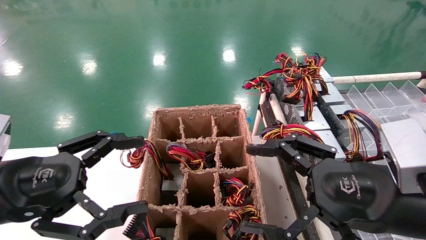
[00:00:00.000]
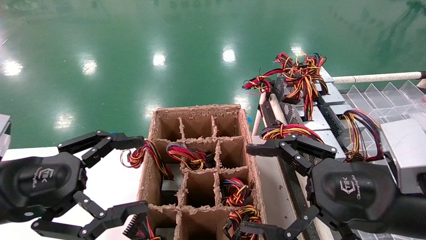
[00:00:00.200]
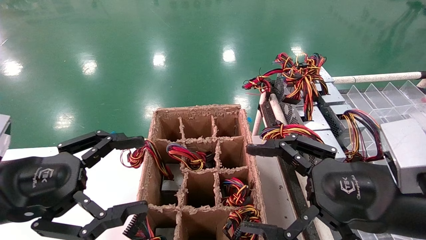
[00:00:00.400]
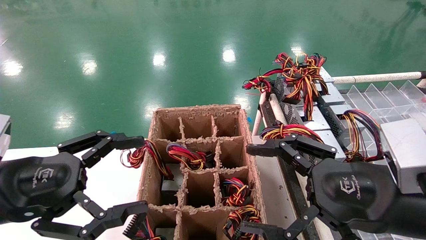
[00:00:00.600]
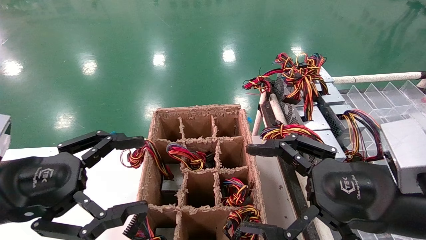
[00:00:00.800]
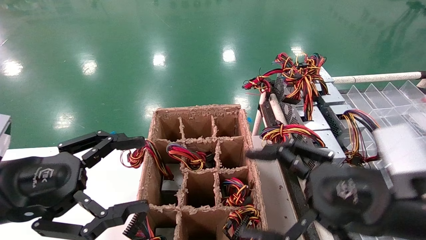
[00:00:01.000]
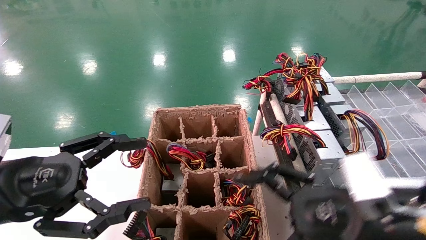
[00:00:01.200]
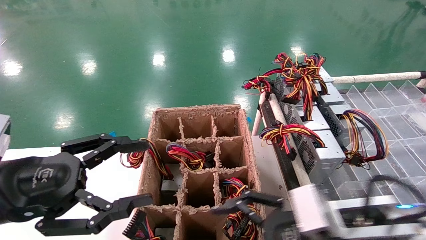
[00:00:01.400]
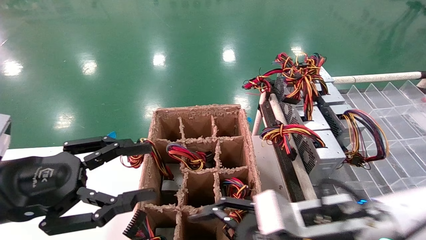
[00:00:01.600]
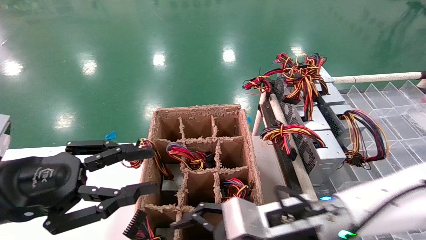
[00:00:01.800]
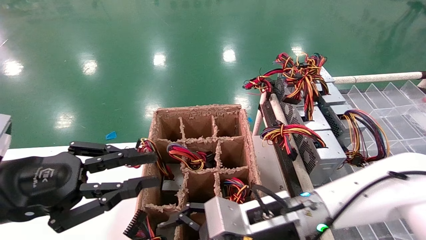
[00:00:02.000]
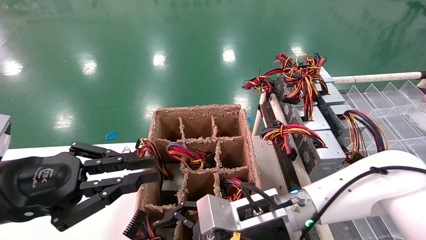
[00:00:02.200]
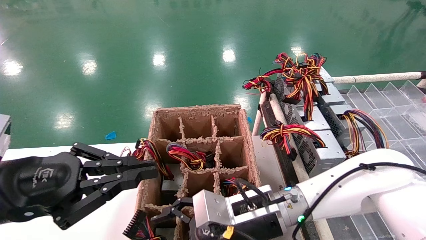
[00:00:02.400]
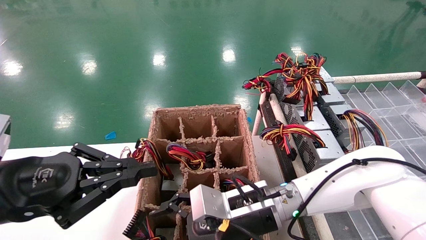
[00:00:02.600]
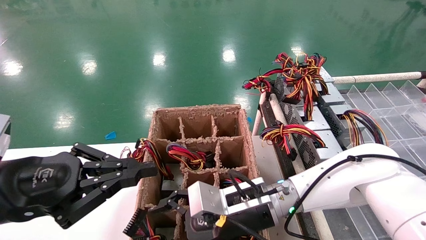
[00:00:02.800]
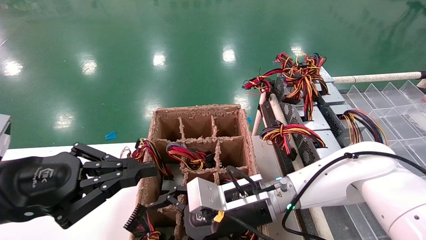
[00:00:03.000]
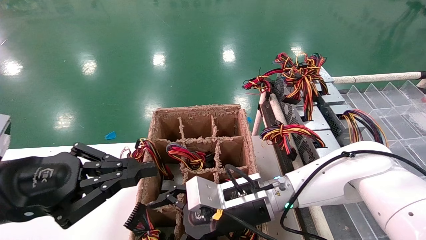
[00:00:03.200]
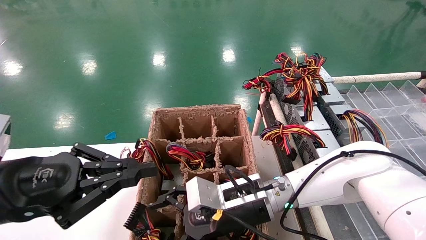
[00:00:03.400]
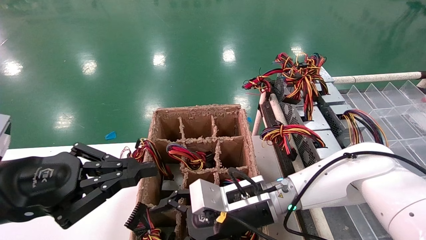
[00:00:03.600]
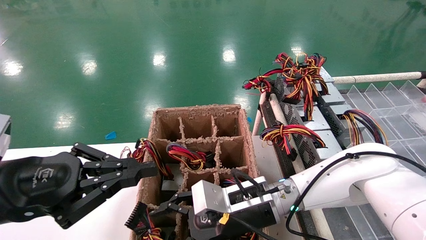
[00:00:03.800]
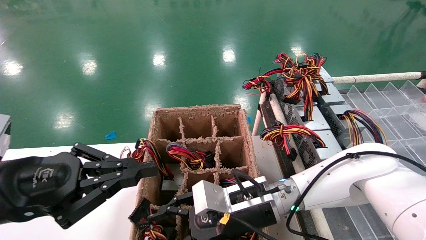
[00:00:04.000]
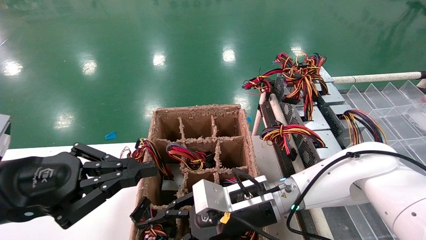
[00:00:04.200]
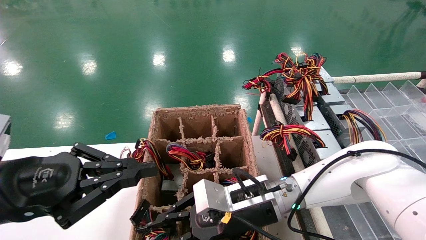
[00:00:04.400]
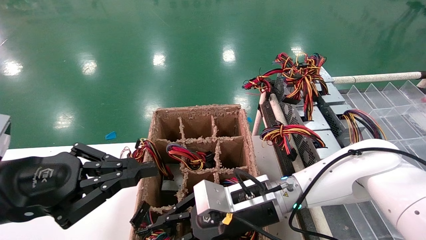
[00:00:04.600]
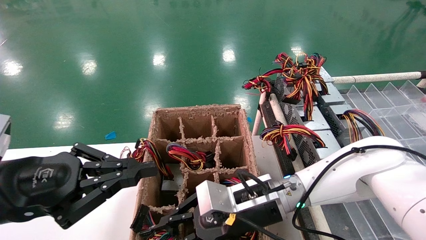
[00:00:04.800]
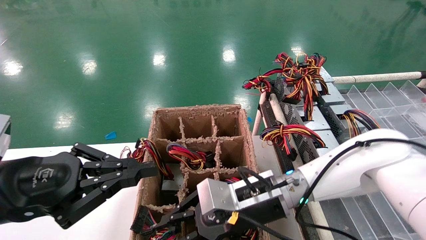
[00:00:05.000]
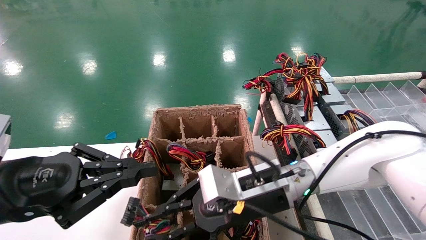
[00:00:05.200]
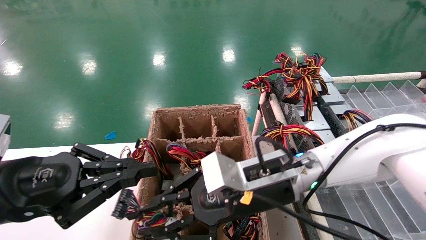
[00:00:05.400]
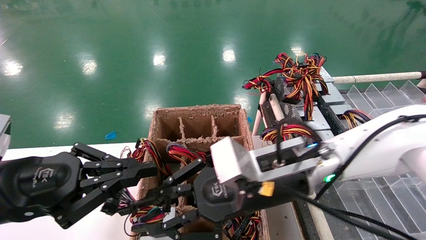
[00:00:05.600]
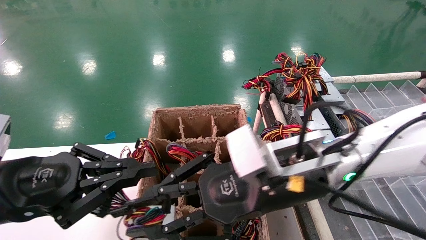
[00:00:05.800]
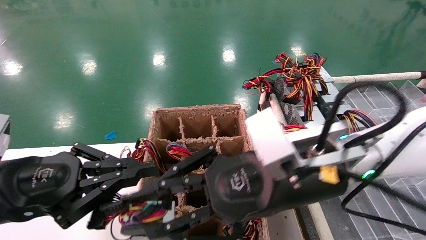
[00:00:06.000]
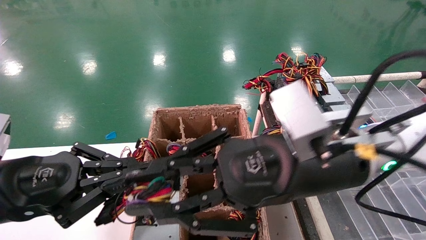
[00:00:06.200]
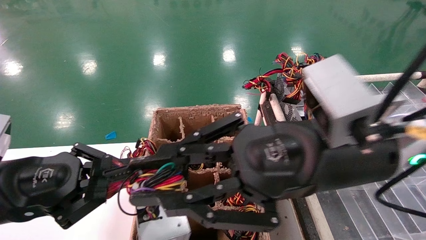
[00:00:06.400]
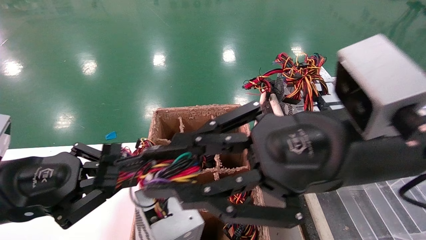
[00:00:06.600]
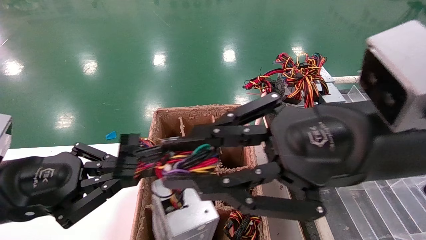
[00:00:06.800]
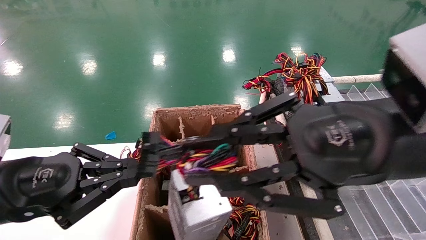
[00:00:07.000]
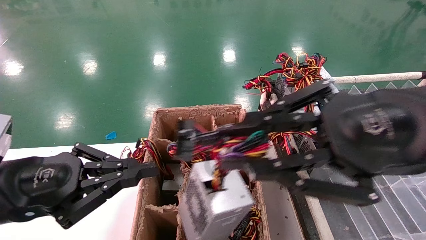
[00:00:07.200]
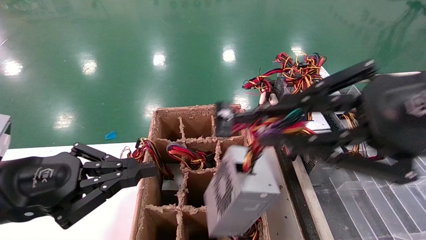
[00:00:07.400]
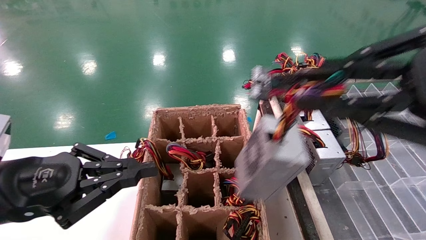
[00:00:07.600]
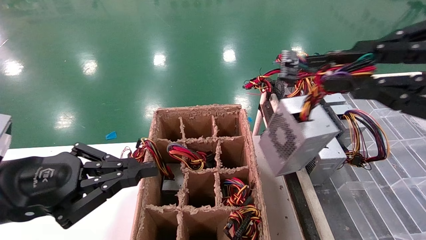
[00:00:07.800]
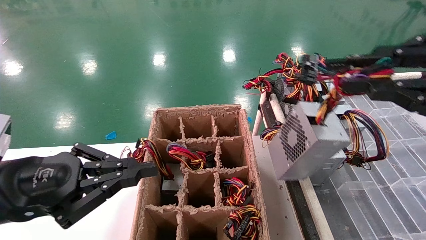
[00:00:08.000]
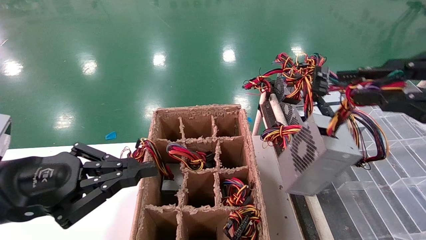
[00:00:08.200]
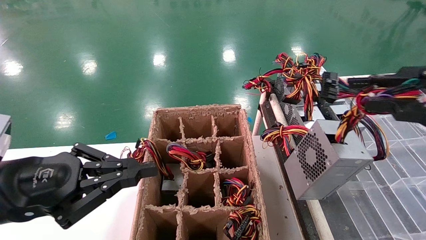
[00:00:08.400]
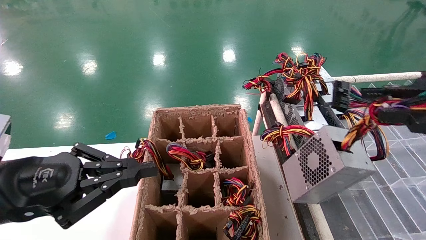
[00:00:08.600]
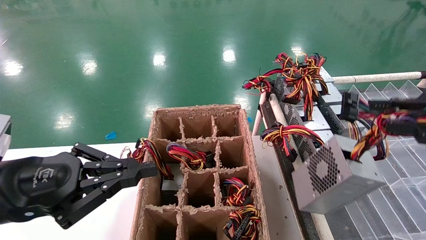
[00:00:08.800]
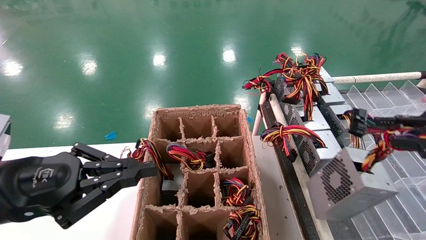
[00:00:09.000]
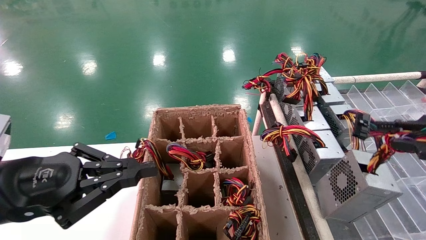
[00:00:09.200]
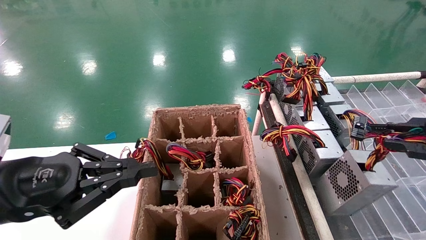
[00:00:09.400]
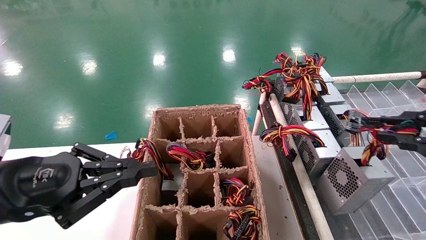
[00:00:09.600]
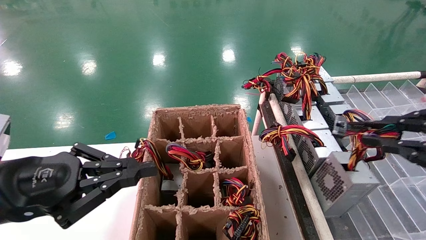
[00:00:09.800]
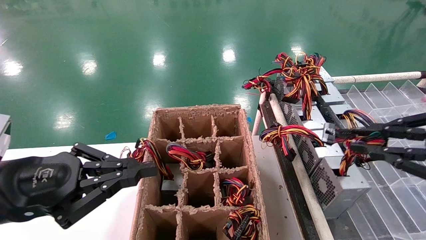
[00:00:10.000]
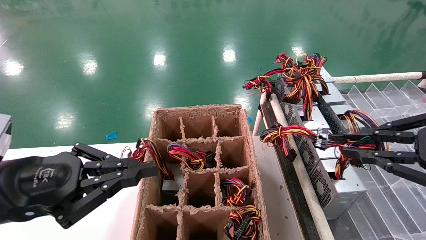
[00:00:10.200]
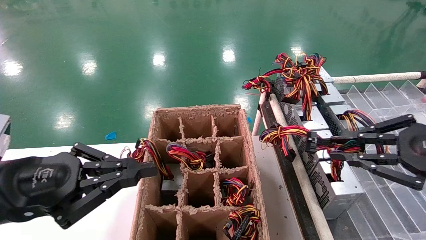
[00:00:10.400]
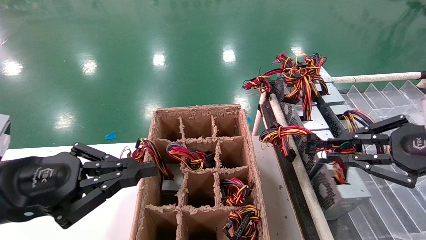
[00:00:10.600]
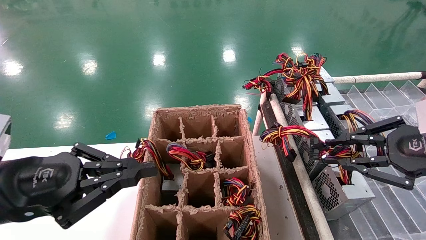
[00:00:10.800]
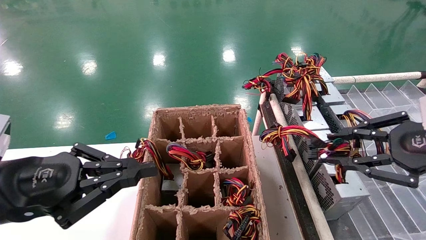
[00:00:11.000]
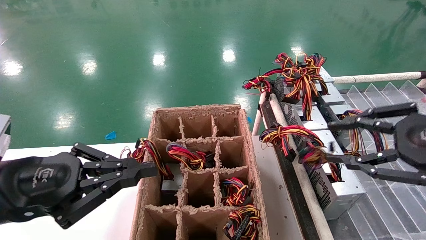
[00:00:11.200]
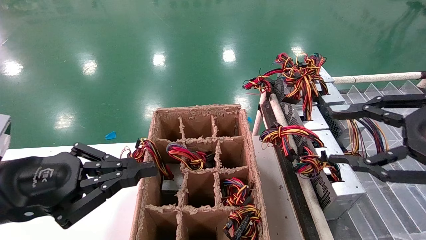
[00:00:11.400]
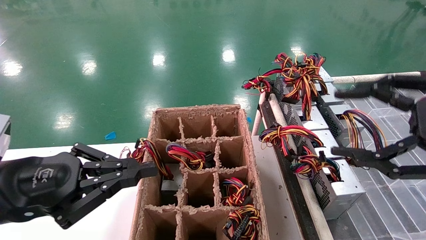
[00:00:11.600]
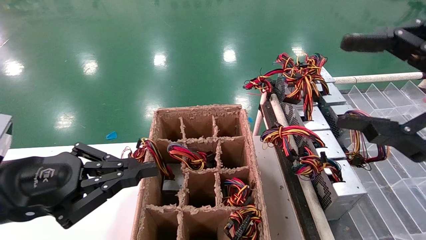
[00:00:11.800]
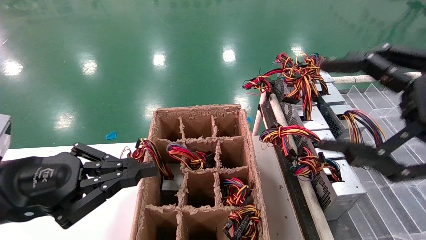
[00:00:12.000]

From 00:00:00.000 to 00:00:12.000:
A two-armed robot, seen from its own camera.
Step, from 00:00:01.400 to 00:00:04.600: Grab the main unit power supply from the containment box.
Step, from 00:00:04.800 to 00:00:11.400: Place the main unit power supply in the designated area.
From 00:00:00.000 to 00:00:01.600: The right gripper shifts some 15 cm to the left, downward and forward.
From 00:00:01.600 to 00:00:03.000: The right gripper heads to the left and forward, covering roughly 10 cm. The left gripper closes.
From 00:00:03.000 to 00:00:04.400: The right gripper closes its fingers.
From 00:00:04.400 to 00:00:06.000: The right gripper heads upward and backward, covering about 15 cm.
From 00:00:06.000 to 00:00:07.600: The right gripper heads to the right, upward and backward, covering approximately 25 cm.
From 00:00:07.600 to 00:00:09.000: The right gripper goes some 10 cm to the right and downward.
From 00:00:09.000 to 00:00:10.400: The right gripper goes some 10 cm forward.
From 00:00:10.400 to 00:00:12.000: The right gripper shifts some 5 cm to the left, and opens its fingers.

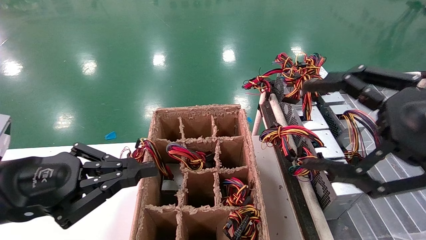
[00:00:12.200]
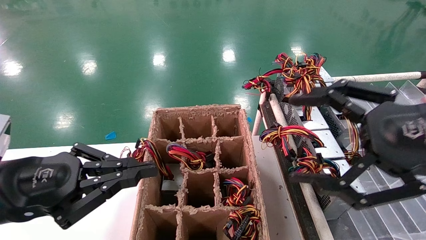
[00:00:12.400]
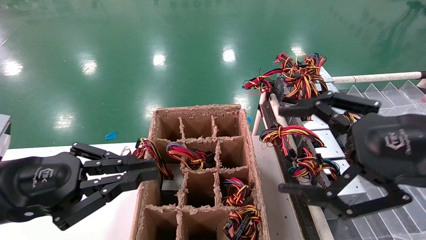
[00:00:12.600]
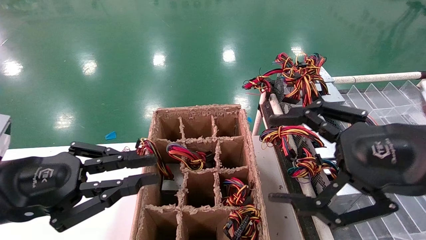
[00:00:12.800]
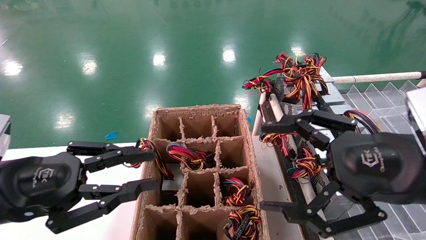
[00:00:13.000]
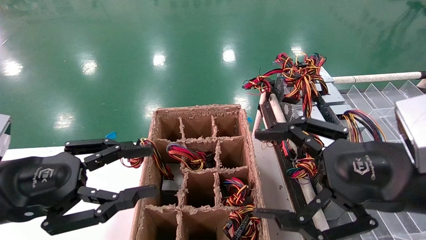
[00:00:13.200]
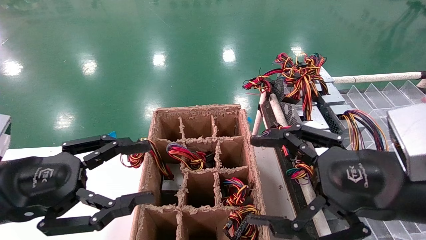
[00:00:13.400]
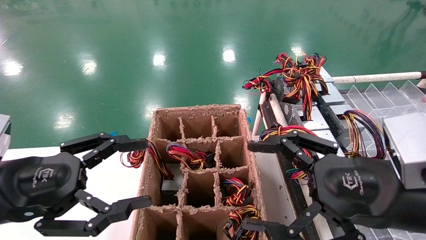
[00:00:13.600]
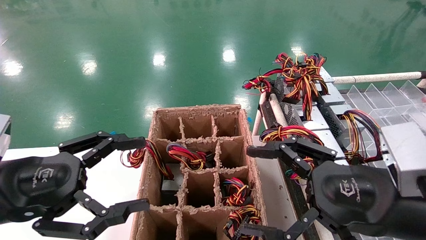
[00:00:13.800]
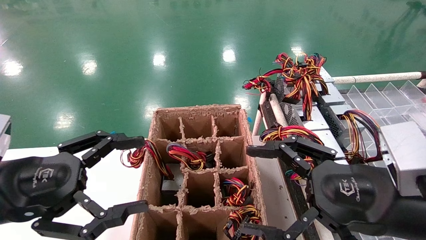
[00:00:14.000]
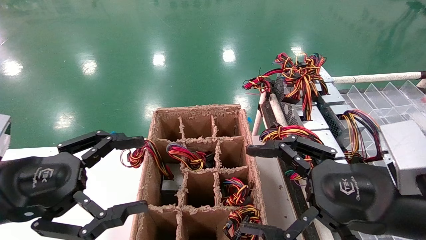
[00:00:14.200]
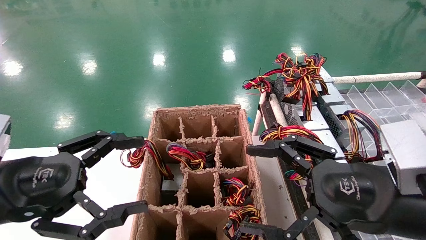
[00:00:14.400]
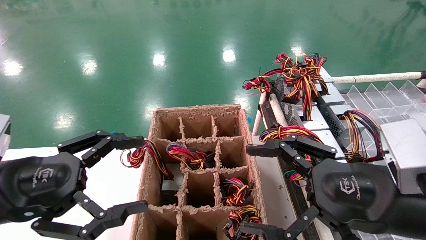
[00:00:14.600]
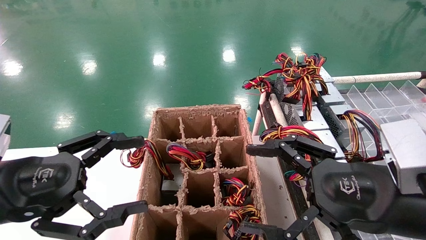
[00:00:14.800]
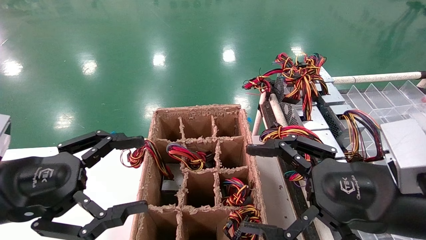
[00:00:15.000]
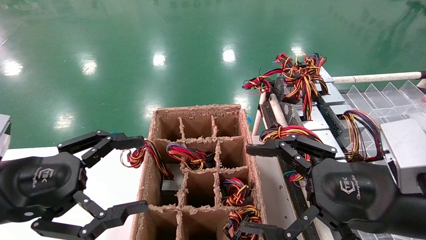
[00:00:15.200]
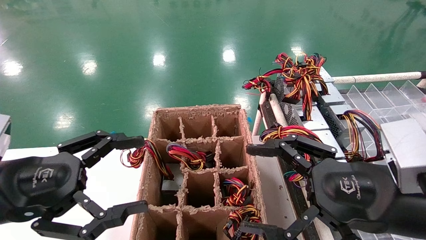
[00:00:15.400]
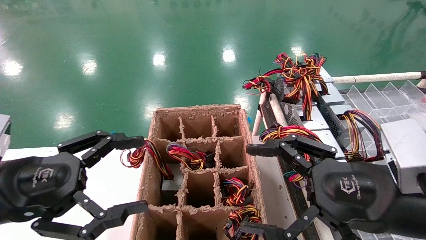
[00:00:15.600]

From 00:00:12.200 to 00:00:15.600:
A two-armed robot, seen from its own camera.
From 00:00:12.200 to 00:00:13.800: The left gripper opens its fingers. The right gripper moves downward and to the left, approximately 10 cm.
From 00:00:13.800 to 00:00:15.600: The two grippers keep their place.
